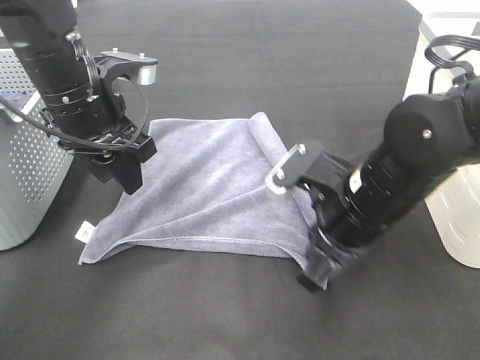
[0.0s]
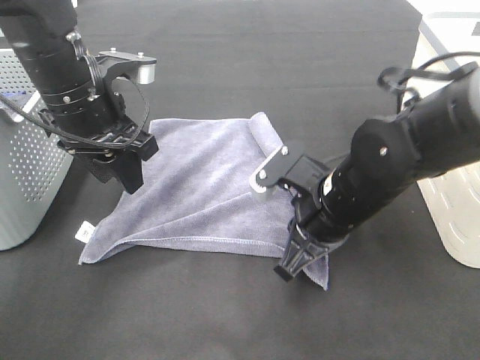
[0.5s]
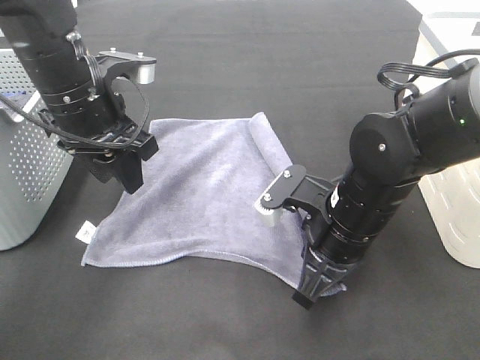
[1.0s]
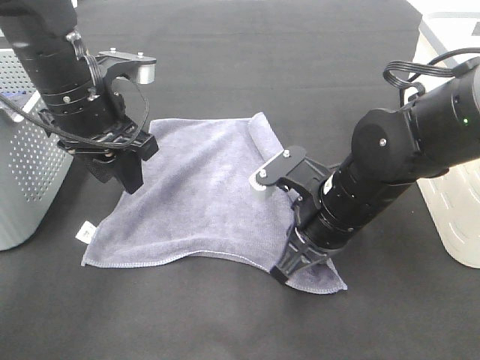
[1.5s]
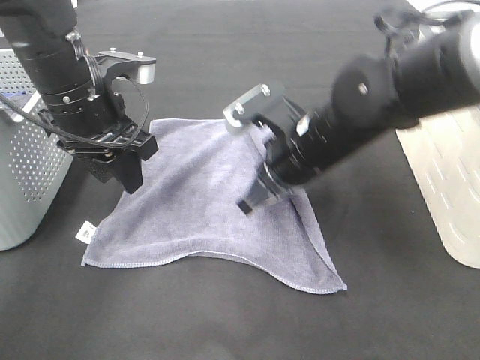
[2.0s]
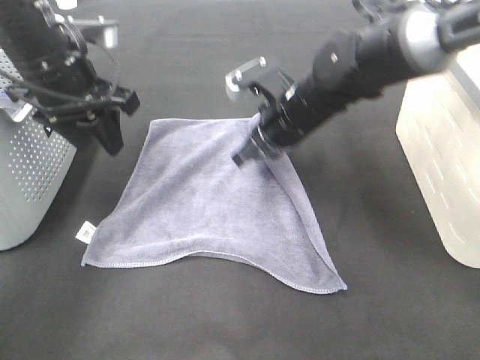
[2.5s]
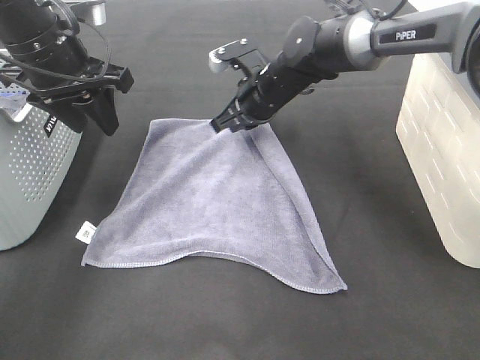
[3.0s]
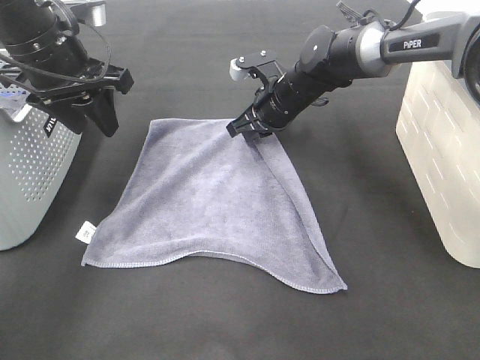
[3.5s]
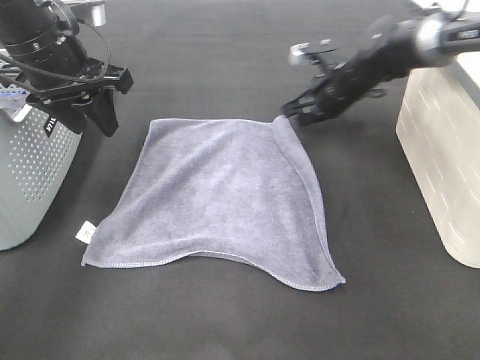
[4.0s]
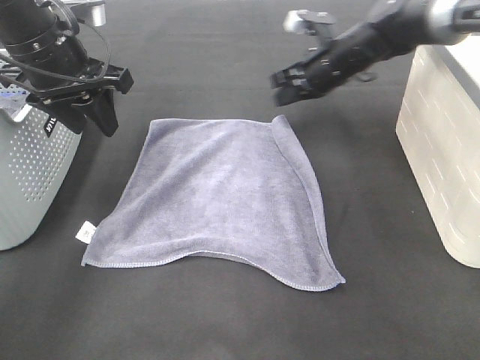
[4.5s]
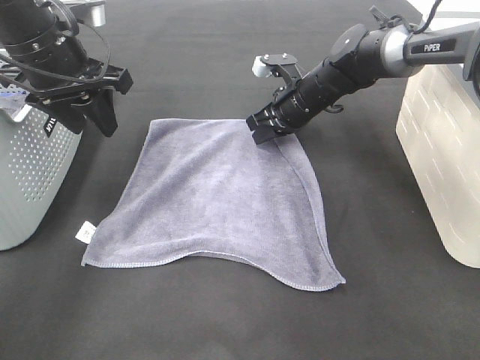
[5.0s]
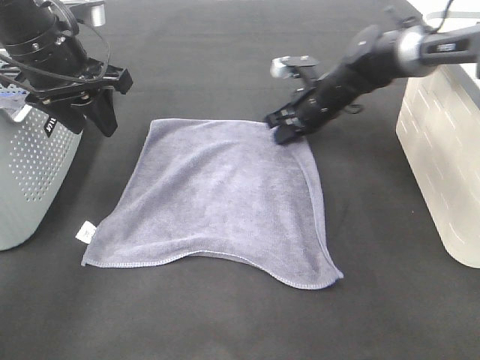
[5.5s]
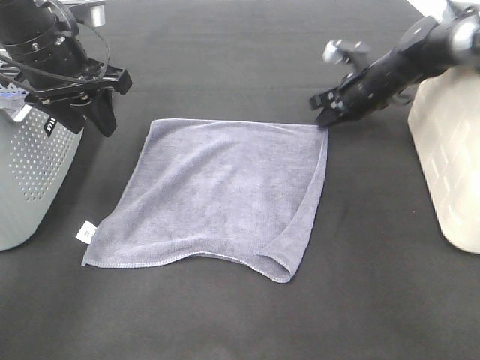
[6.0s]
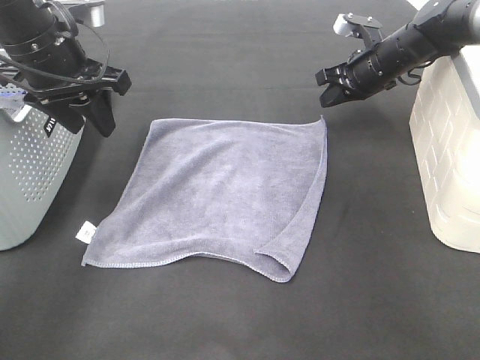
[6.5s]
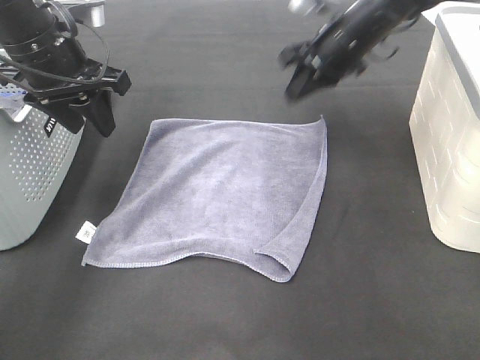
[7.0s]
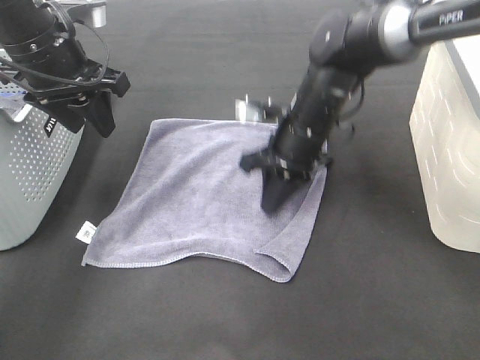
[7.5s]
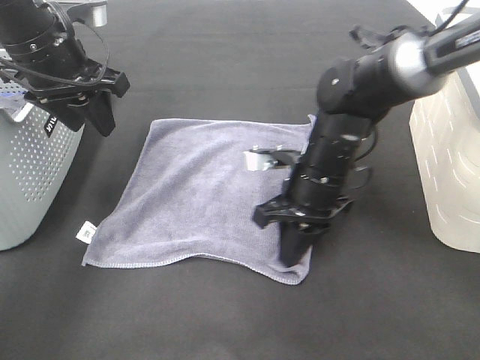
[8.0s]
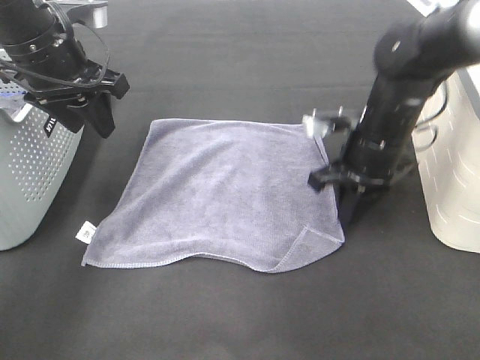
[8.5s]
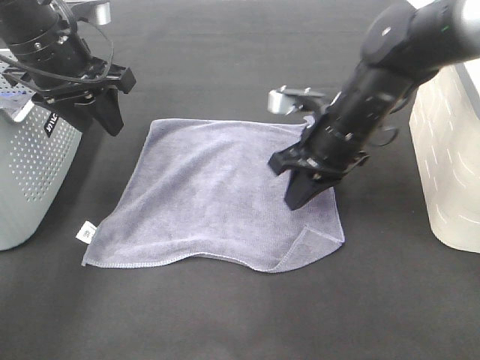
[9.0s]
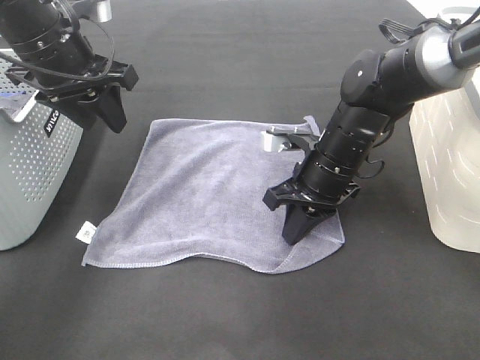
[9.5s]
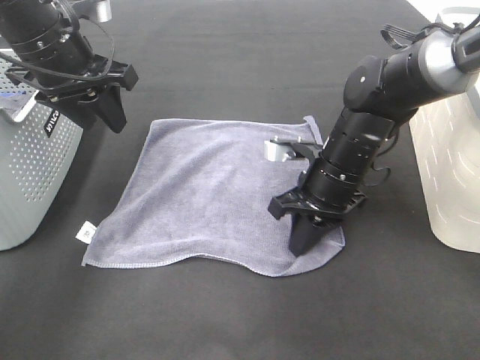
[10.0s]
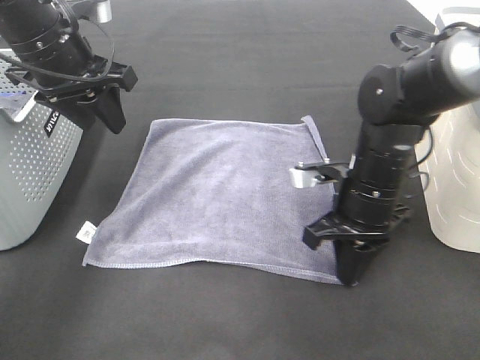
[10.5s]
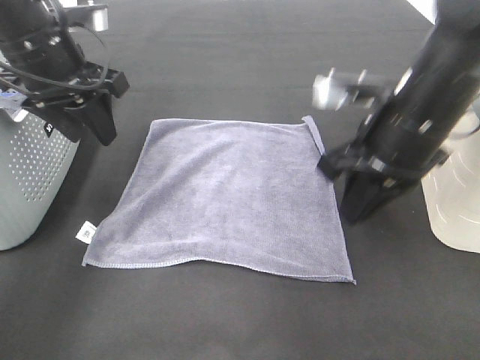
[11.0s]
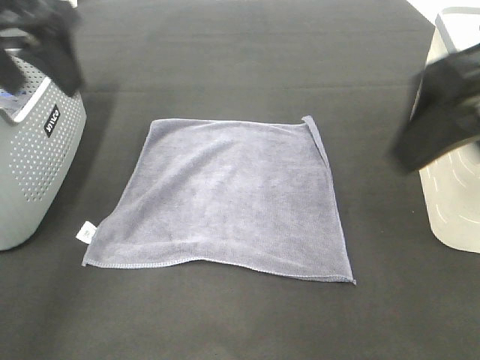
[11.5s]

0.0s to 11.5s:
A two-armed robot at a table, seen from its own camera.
Task of the whole recording: Remove the towel and place it.
Step, 0.0s to 2.5s: Right hand:adjust the gray towel.
0.0s to 2.0s: The right gripper goes about 5 cm forward.
2.0s to 4.0s: The right gripper moves forward and to the right, approximately 25 cm. The left gripper moves about 5 cm.
6.0s to 7.5s: The right gripper moves backward and to the left, roughly 20 cm.
9.5s to 11.5s: The right gripper moves upward and backward, about 30 cm, and opens. Meanwhile the left gripper goes about 10 cm upward and backward.

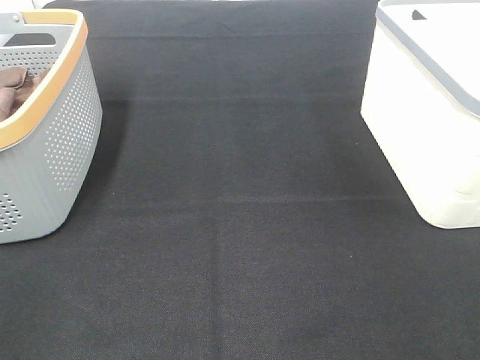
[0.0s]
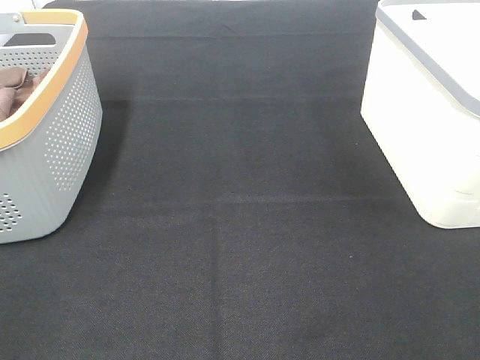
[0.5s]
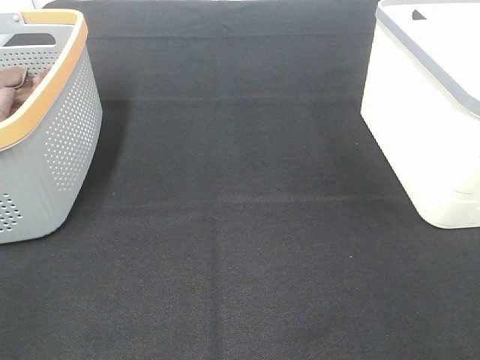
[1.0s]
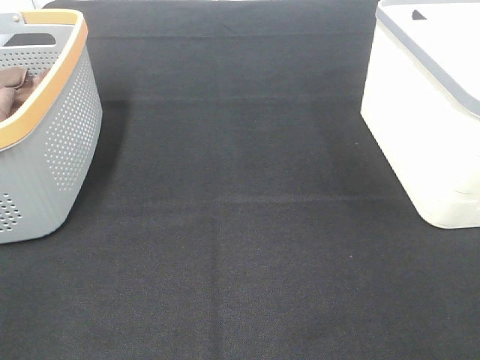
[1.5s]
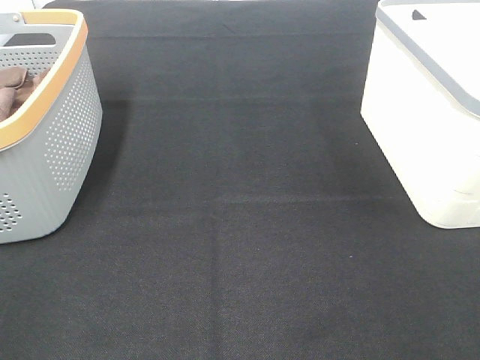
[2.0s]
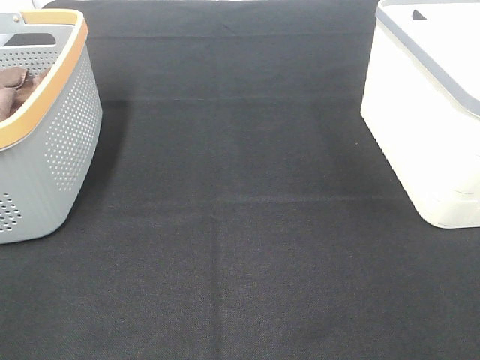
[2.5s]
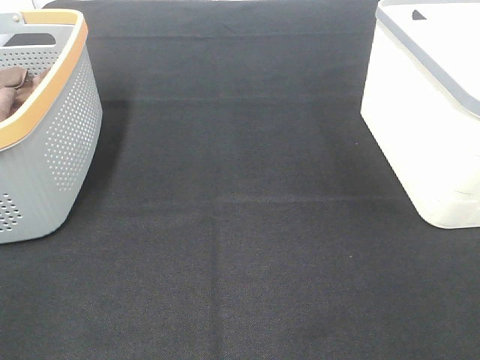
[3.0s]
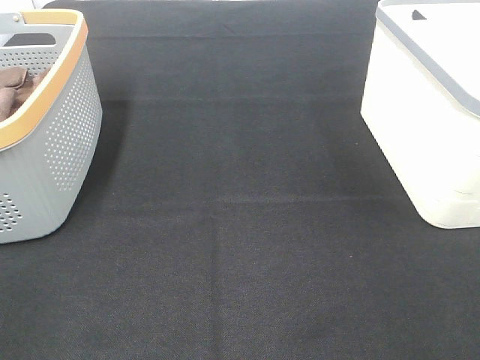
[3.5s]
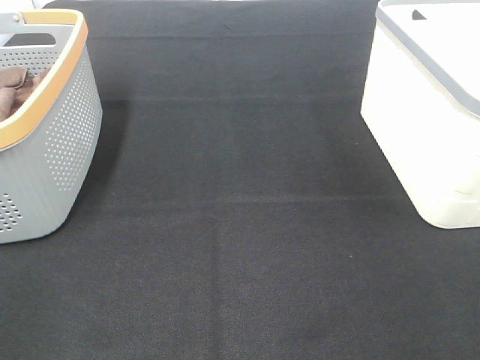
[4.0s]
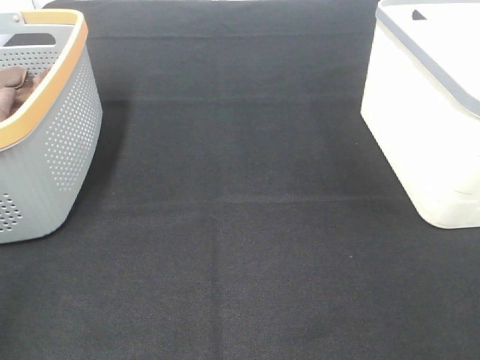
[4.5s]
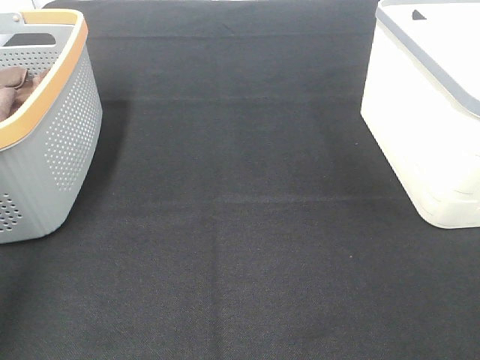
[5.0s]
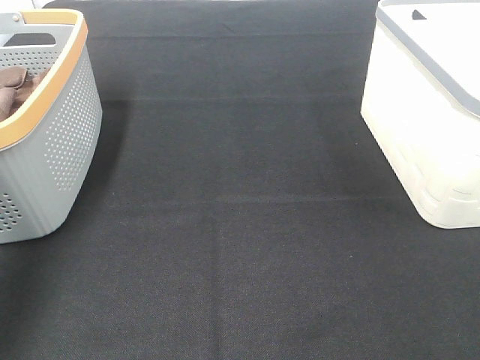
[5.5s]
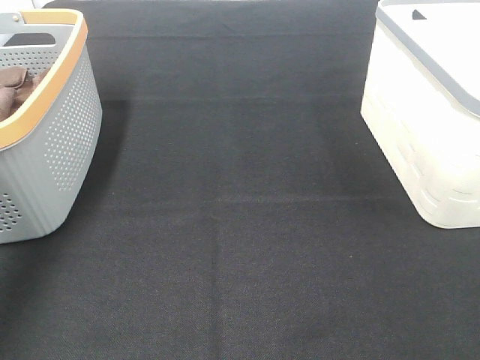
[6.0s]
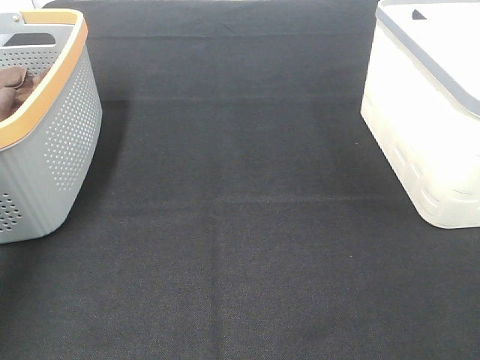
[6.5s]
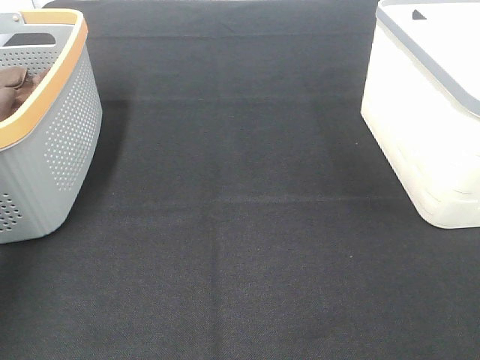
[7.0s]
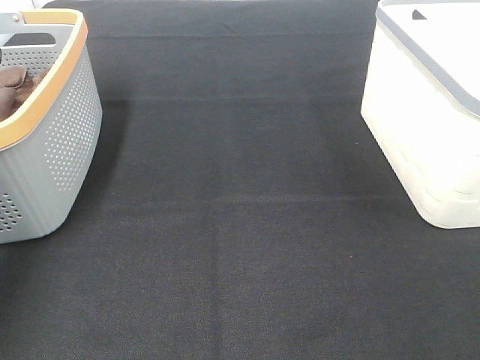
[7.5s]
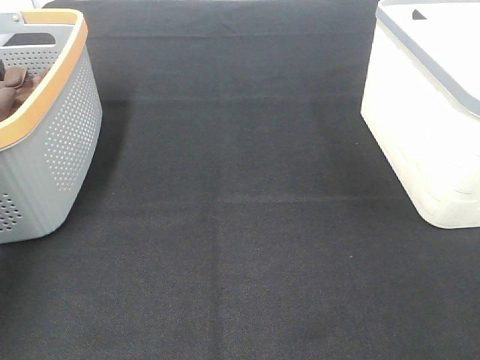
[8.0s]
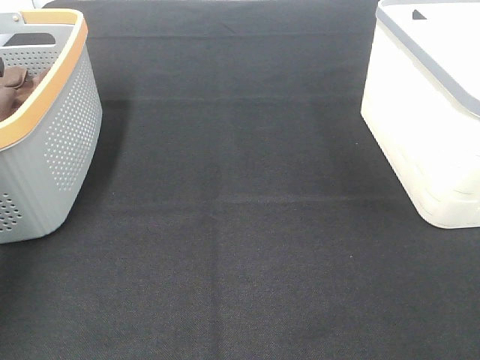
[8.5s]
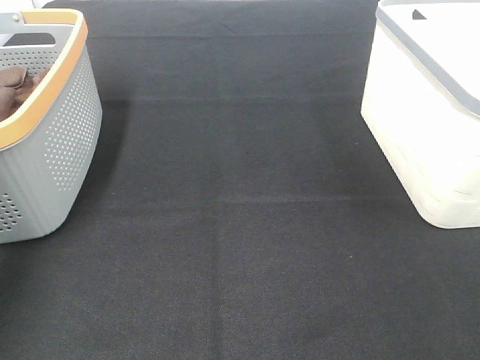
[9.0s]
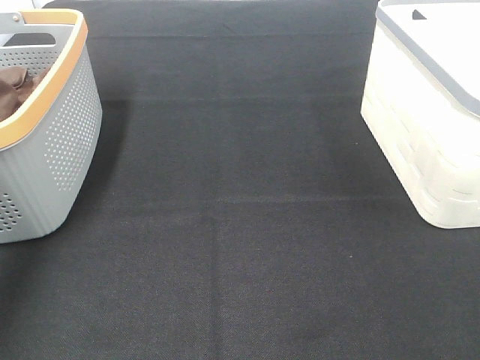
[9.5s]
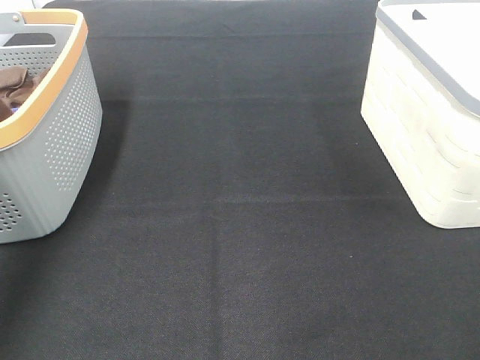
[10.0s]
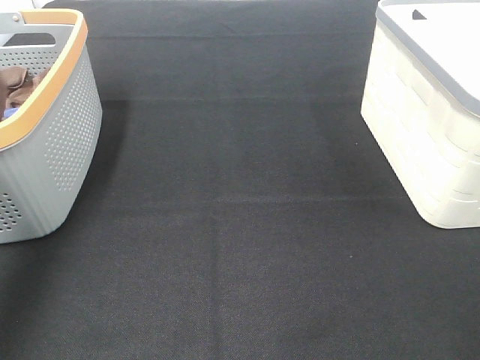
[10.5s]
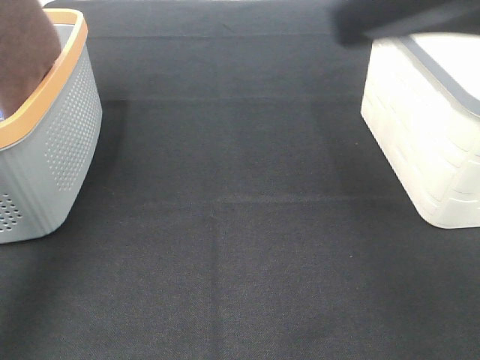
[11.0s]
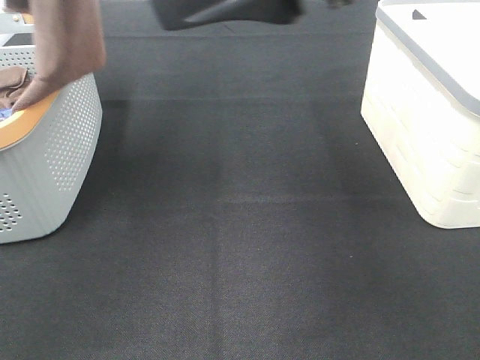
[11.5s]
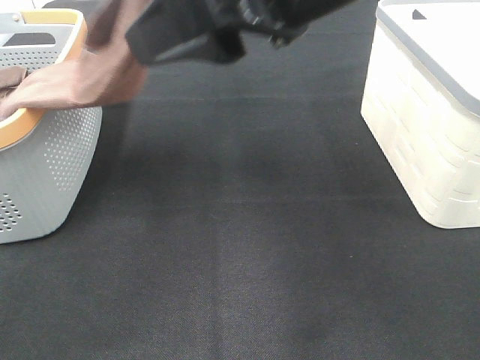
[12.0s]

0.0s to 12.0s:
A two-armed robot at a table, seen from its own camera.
Task of the whole recording: Remove the towel and place it.
0.0s to 4.0s: The two grippers keep their place.
4.0s to 6.0s: The left gripper travels forward by roughly 35 cm.
10.0s to 12.0s: The right gripper heads to the left and forward, covering approximately 25 cm, while the left gripper is displaced to the right by approximately 25 cm.

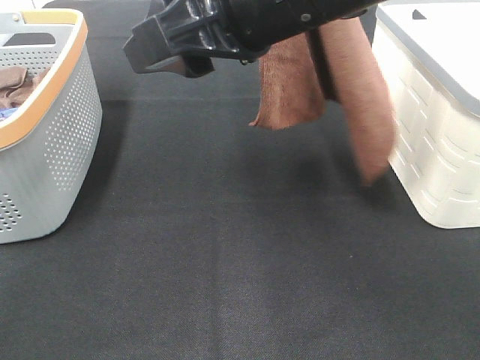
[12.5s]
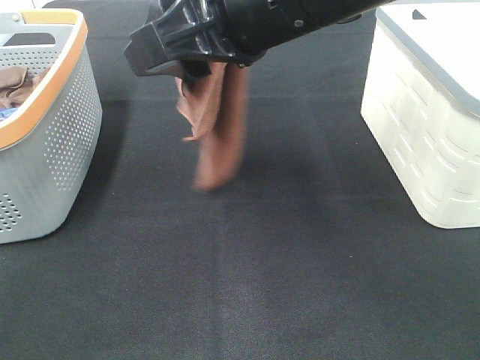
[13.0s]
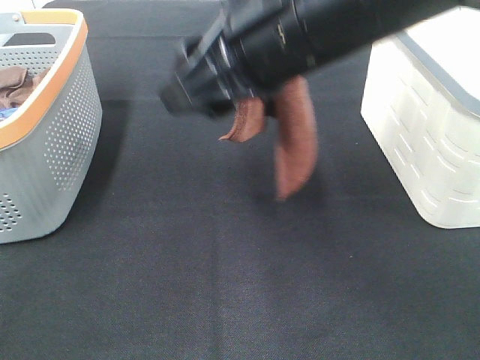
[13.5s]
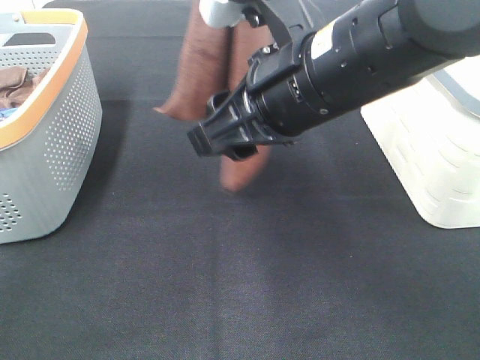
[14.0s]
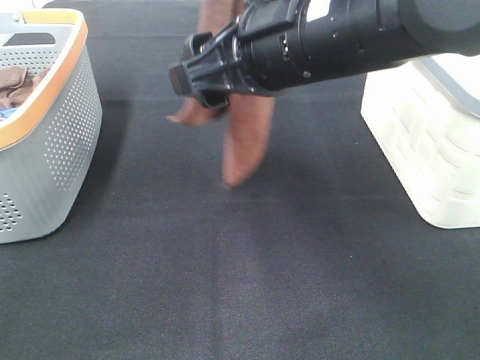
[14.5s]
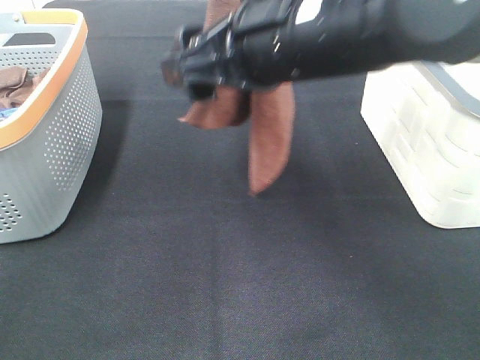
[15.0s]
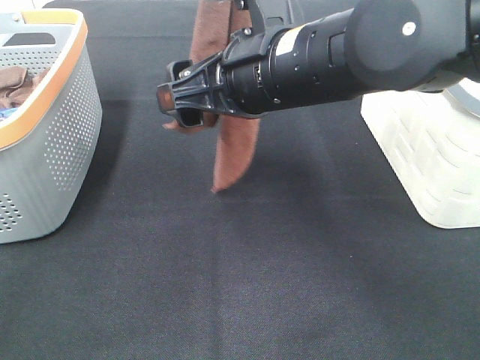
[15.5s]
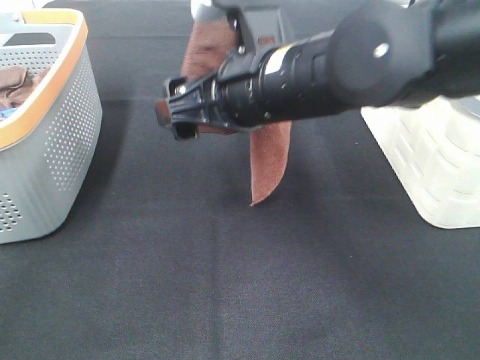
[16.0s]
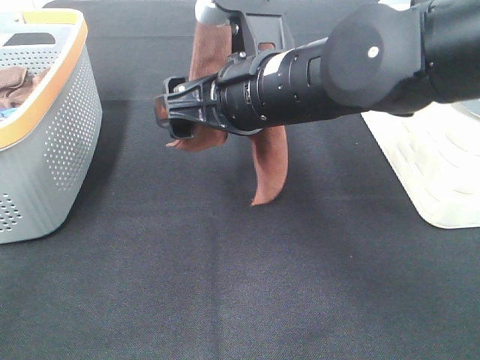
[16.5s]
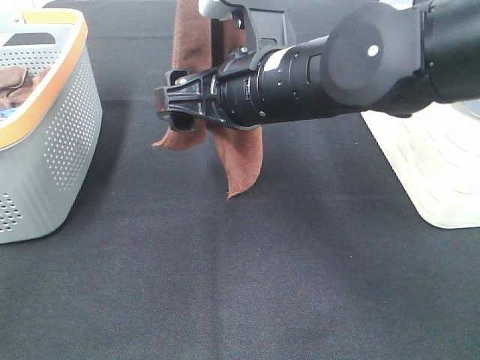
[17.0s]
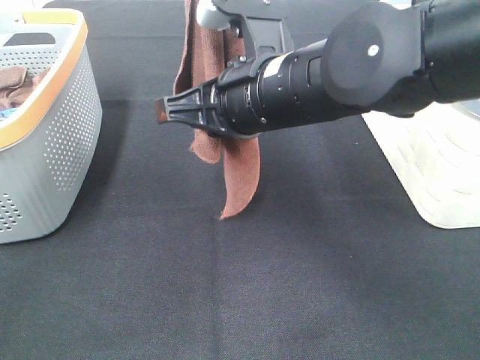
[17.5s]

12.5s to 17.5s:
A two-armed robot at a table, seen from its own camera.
Task of the whole recording: Remove the towel and place it.
Step, 12.5s to 15.0s: Right hand: grab a corner of the brown towel and straighten it.
12.5s to 15.0s: The right gripper goes approximately 5 cm downward.
15.0s to 17.5s: The right gripper shifts by roughly 5 cm, and closes up.
